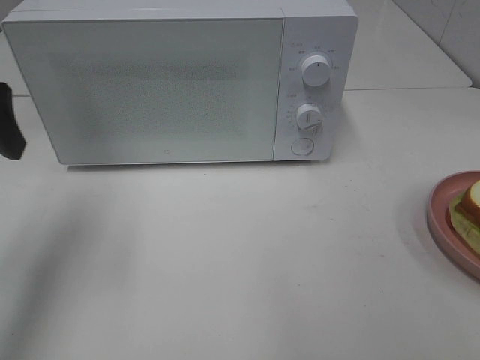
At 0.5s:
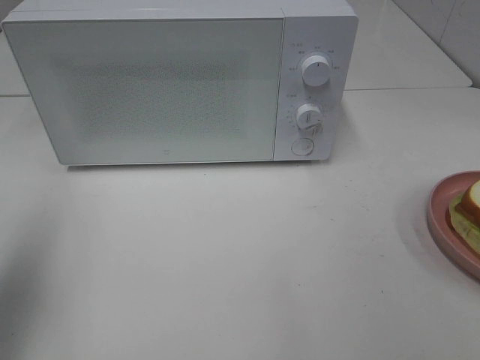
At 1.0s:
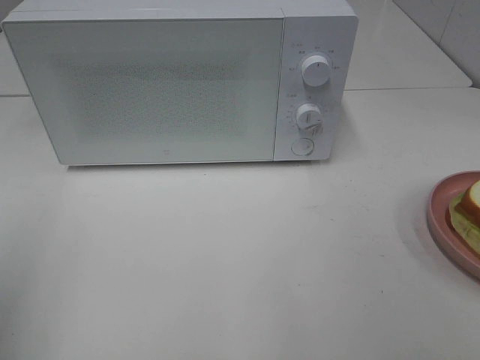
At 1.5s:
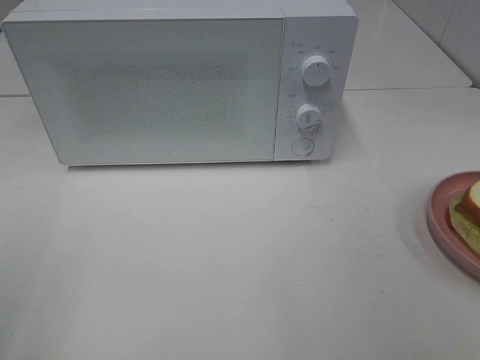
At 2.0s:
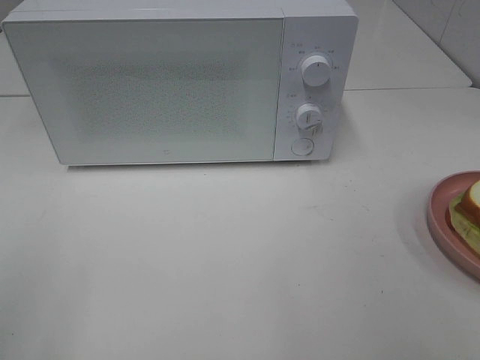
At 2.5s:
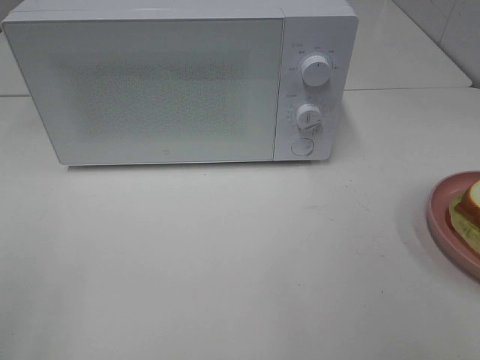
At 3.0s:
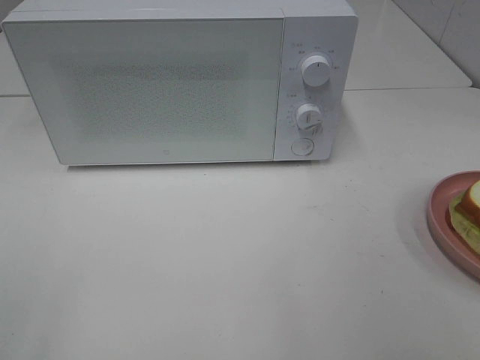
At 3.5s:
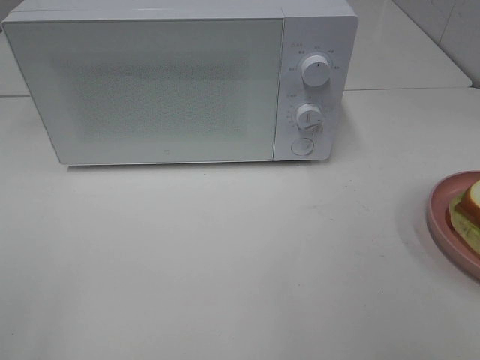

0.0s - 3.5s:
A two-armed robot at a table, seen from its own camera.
Task of the whole recording: Heat Sandwich.
0.0s - 2.0s: The left gripper is displaced backward by roughly 20 cm.
